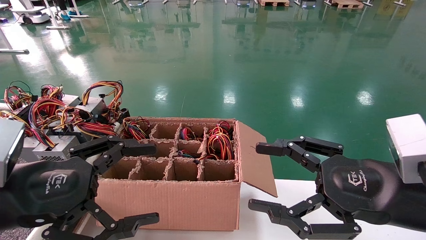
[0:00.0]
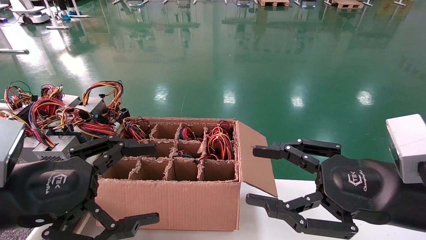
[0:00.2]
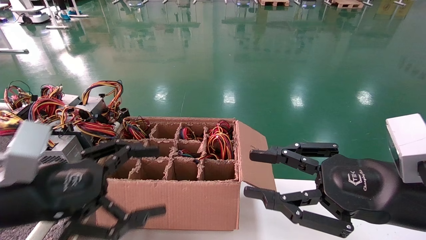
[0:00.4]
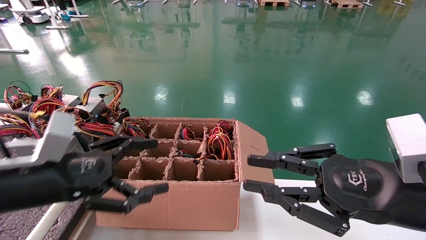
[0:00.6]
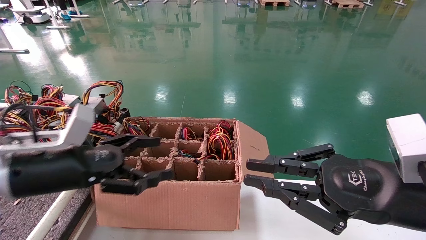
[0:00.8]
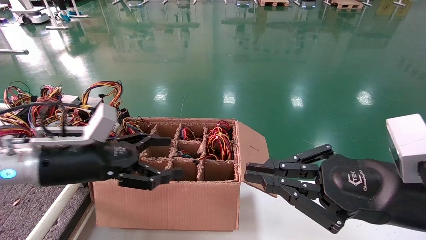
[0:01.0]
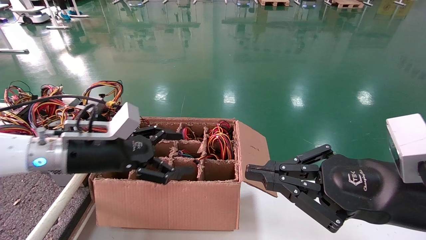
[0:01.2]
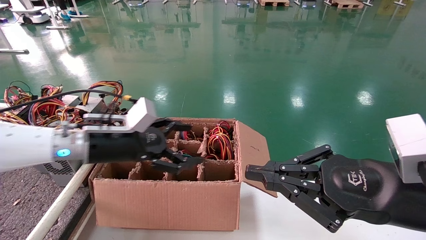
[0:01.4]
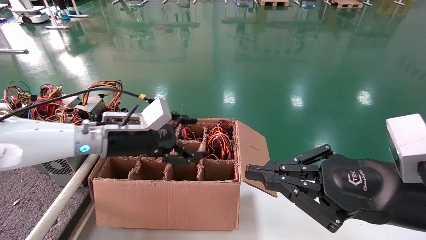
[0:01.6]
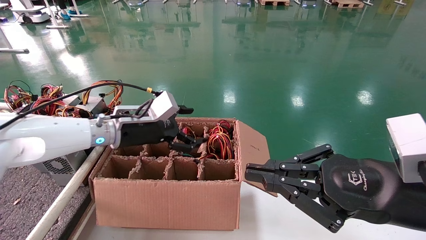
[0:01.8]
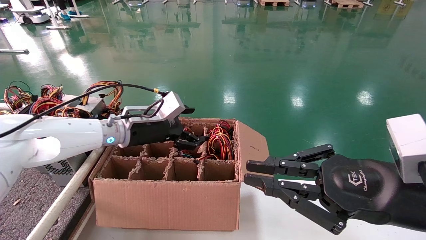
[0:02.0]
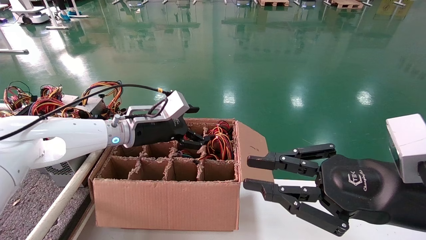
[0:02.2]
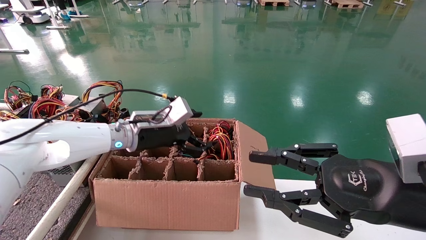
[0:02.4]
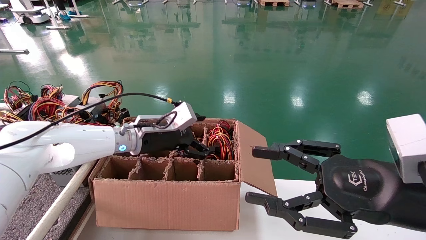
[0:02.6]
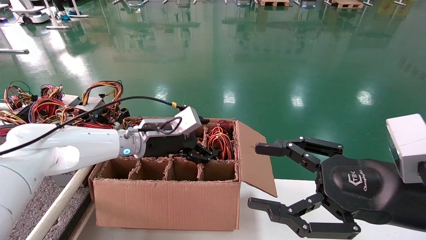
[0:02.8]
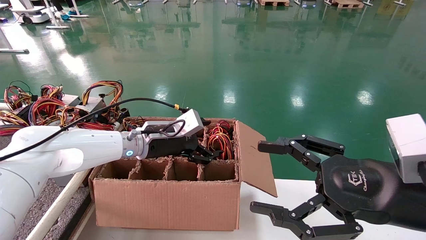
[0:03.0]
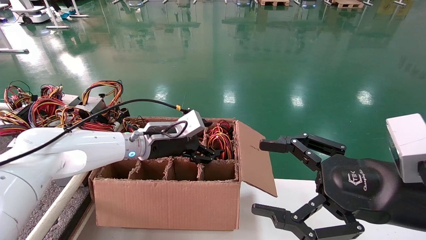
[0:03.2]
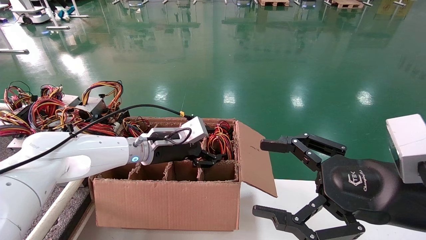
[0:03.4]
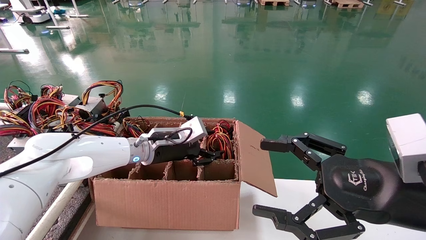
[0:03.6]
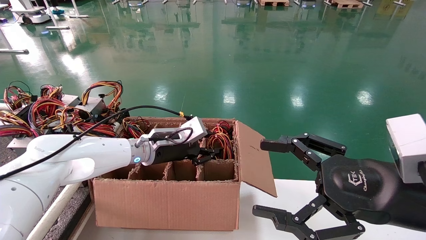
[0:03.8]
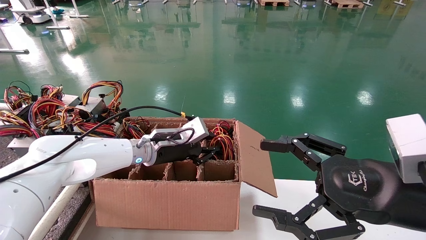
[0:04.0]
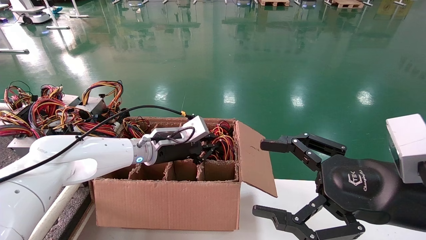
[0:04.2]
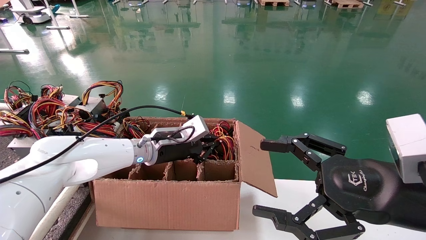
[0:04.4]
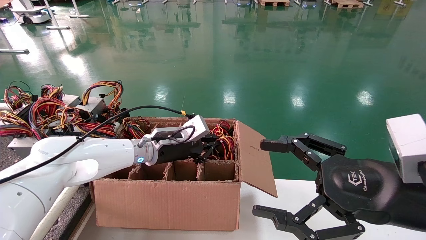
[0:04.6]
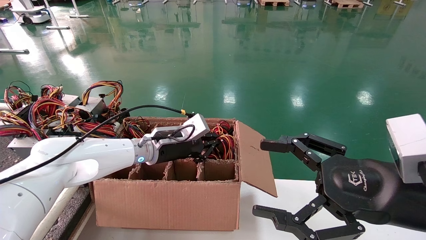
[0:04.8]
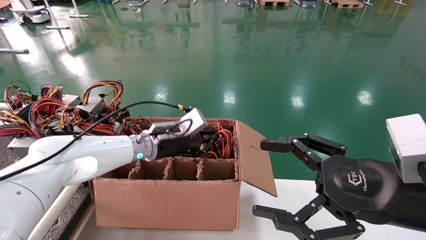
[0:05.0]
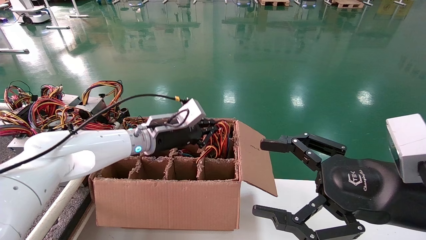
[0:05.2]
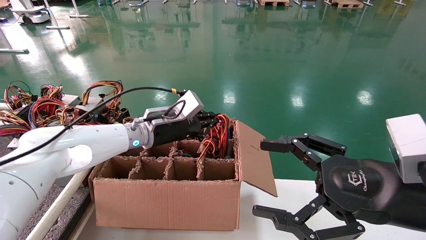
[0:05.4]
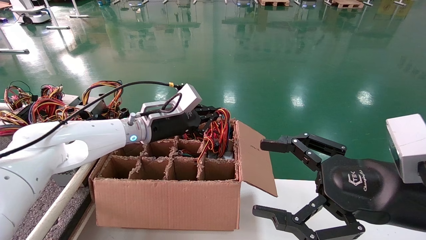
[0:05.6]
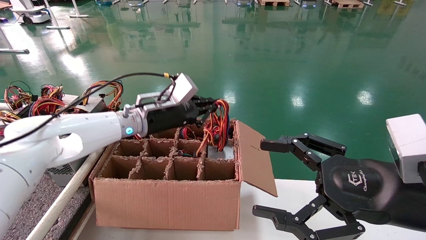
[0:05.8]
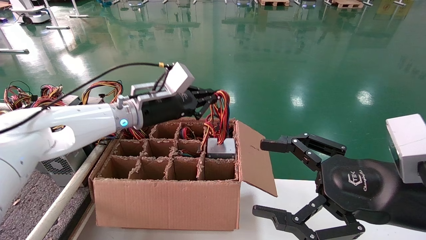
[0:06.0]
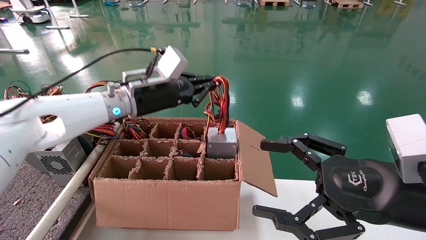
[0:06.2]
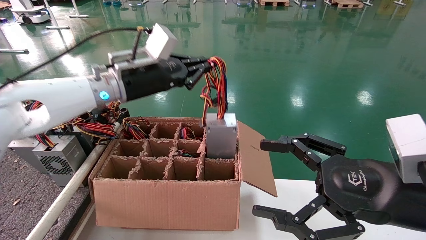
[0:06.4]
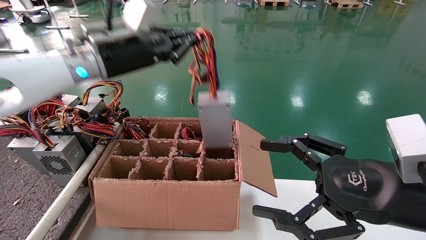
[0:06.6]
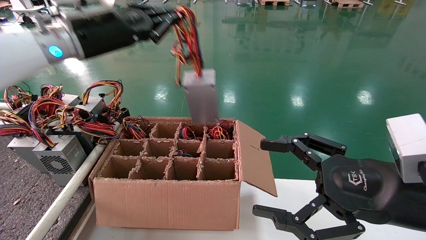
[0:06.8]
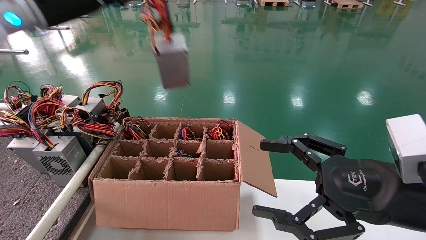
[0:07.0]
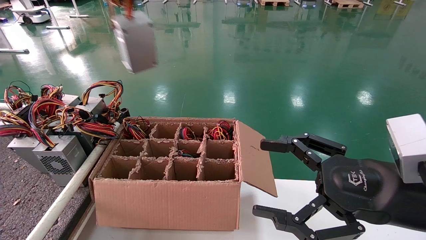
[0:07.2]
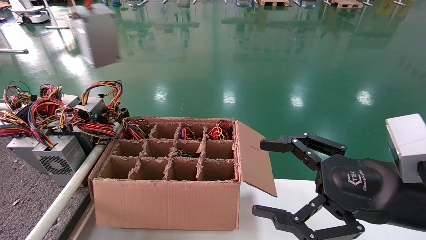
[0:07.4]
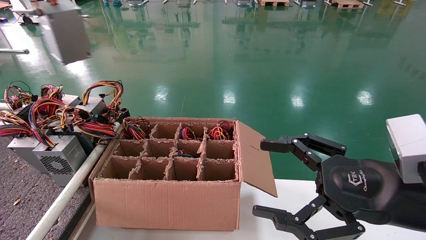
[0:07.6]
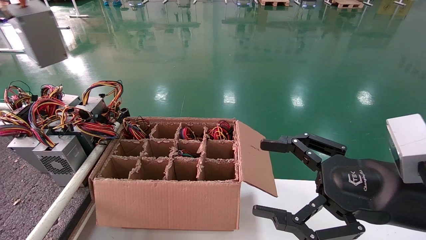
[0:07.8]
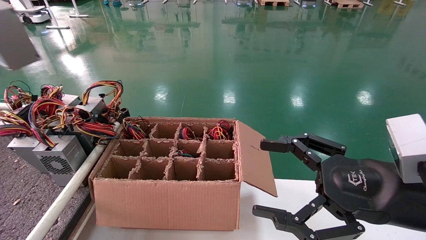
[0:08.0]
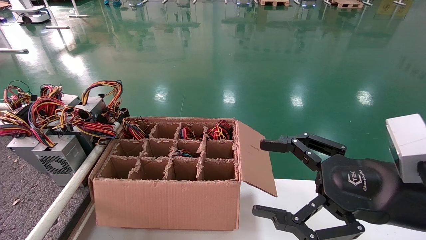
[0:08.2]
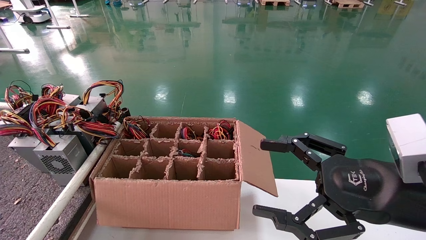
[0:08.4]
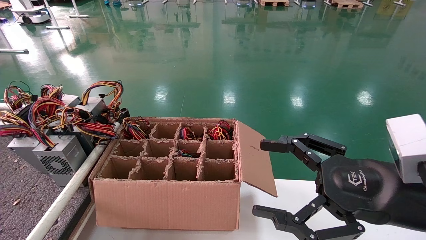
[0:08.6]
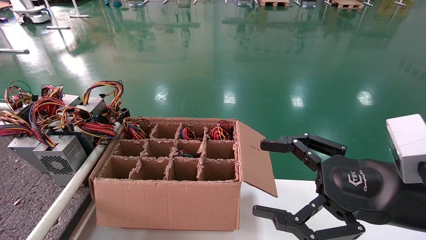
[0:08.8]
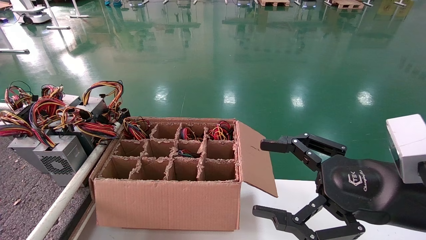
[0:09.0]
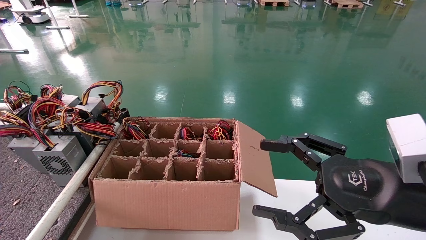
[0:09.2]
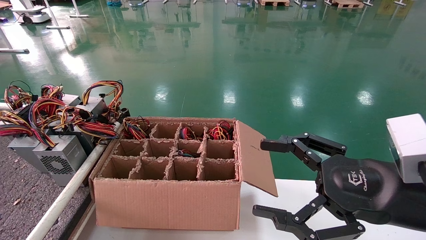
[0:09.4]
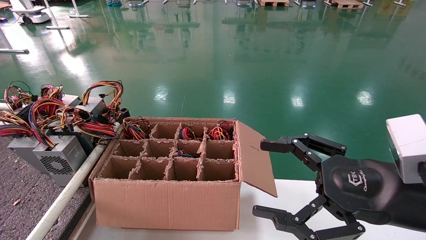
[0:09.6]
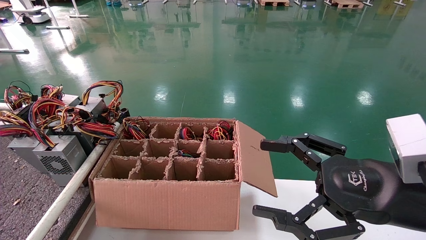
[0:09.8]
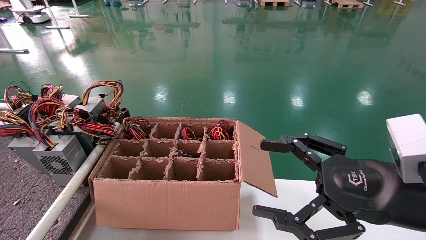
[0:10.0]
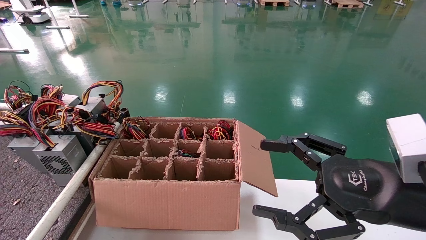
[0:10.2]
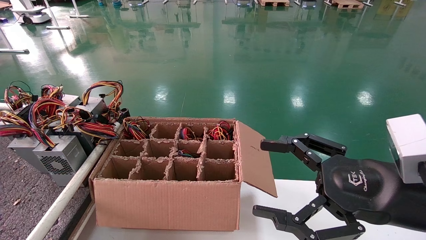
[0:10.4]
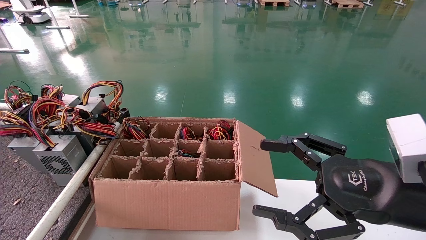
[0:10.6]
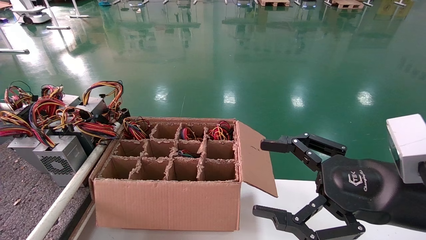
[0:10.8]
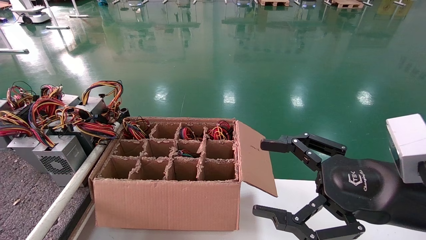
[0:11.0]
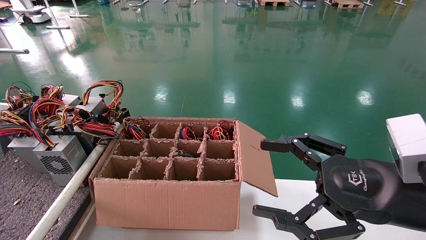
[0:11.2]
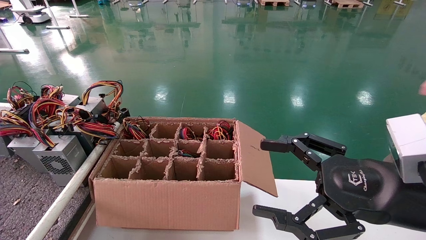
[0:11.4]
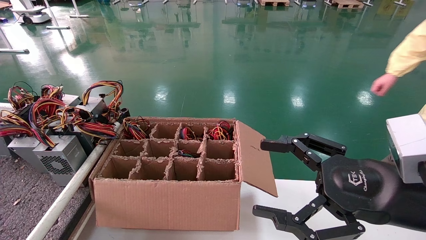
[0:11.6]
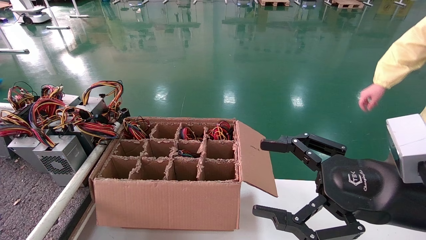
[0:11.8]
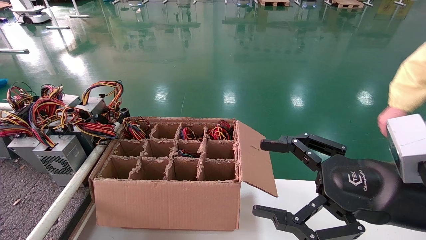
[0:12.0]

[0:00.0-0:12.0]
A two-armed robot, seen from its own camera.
Step, 0:00.6 to 0:05.0: Grab and lift the power supply from the large box.
0:00.0 to 0:01.6: The left gripper travels forward by about 20 cm; the right gripper closes.
0:01.6 to 0:03.0: The left gripper goes roughly 5 cm to the right. The right gripper opens its fingers.
0:03.0 to 0:04.4: The left gripper closes up.
0:04.4 to 0:06.0: The left gripper moves upward, some 10 cm.
0:06.0 to 0:07.6: The left gripper shifts some 35 cm to the left and upward.
0:07.6 to 0:09.0: The left gripper shifts some 25 cm to the left, backward and downward.
0:10.4 to 0:12.0: The left gripper shifts roughly 10 cm forward and downward.

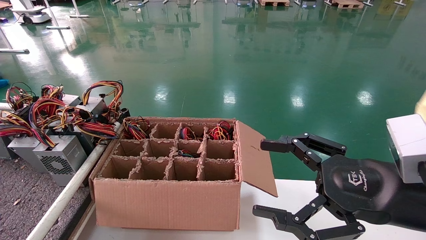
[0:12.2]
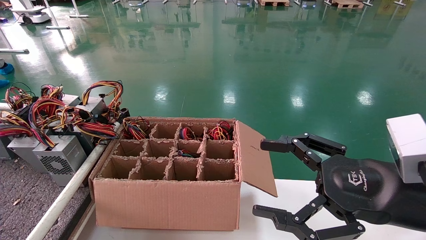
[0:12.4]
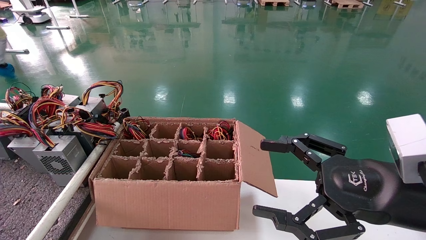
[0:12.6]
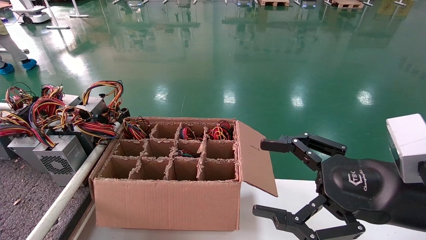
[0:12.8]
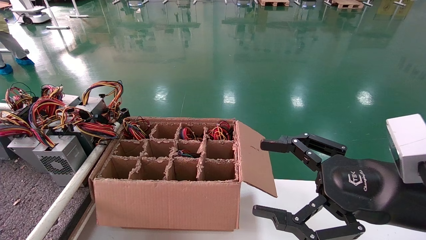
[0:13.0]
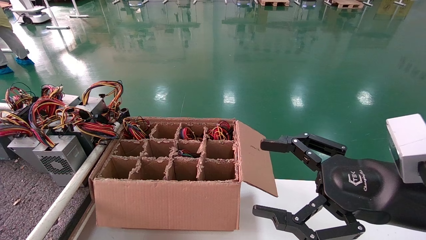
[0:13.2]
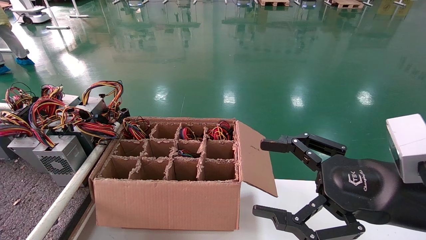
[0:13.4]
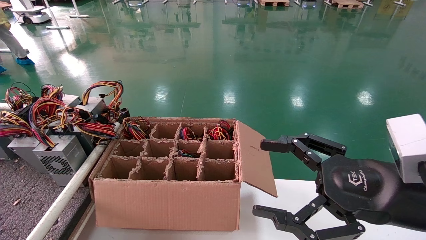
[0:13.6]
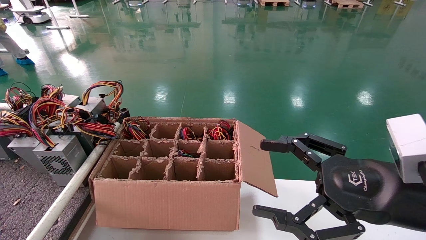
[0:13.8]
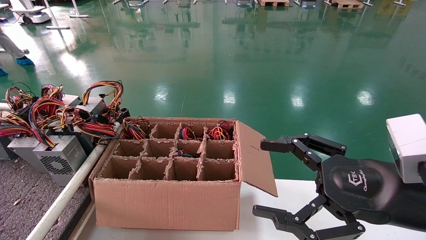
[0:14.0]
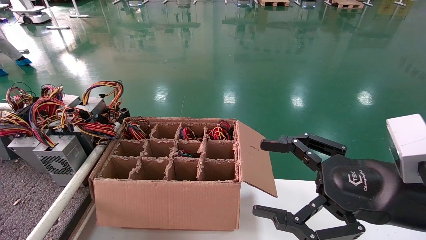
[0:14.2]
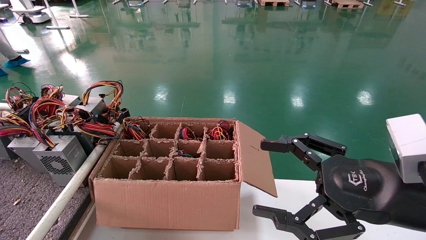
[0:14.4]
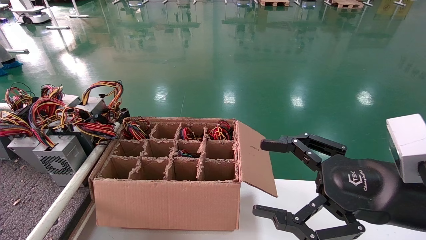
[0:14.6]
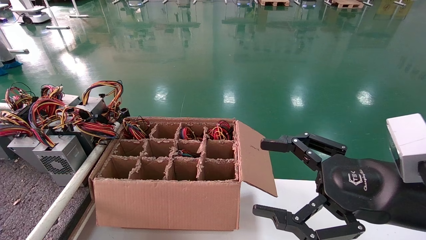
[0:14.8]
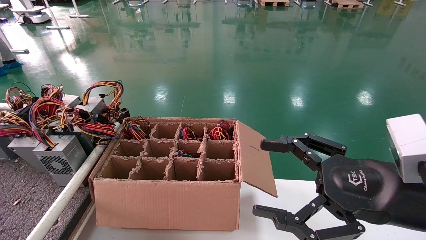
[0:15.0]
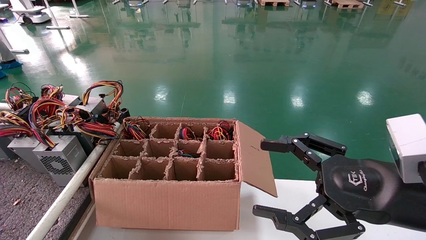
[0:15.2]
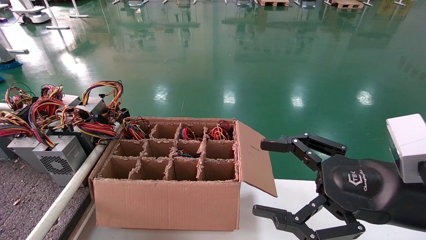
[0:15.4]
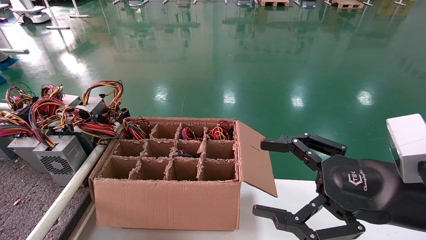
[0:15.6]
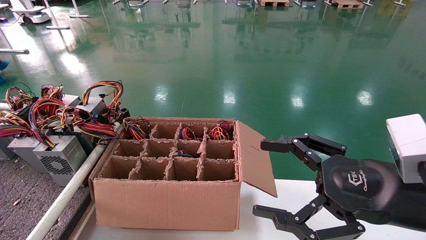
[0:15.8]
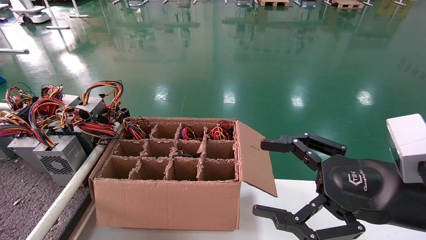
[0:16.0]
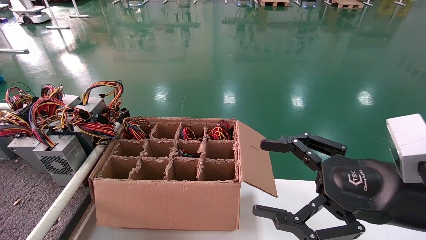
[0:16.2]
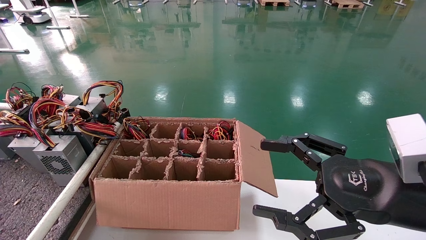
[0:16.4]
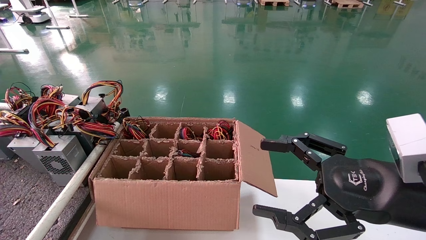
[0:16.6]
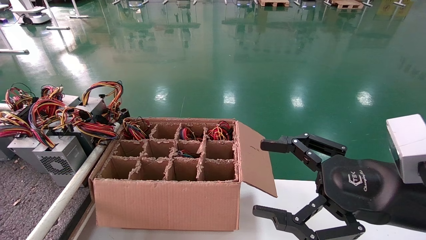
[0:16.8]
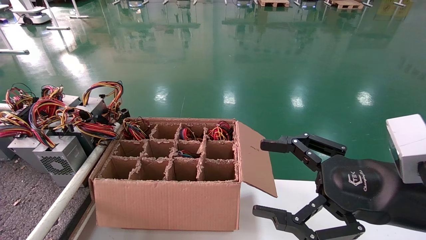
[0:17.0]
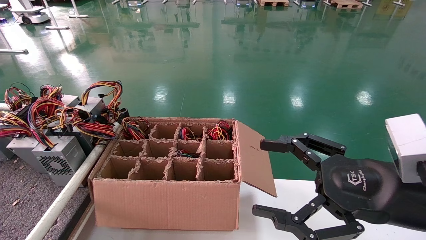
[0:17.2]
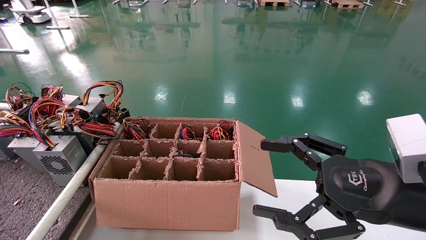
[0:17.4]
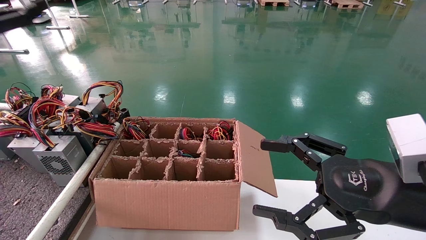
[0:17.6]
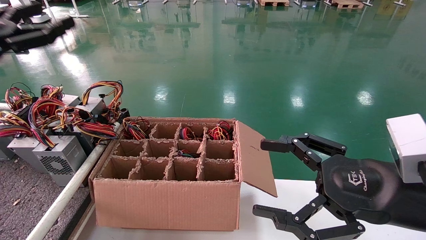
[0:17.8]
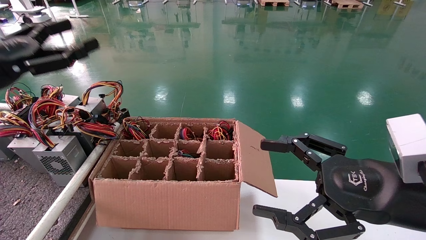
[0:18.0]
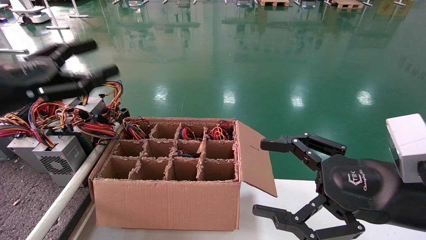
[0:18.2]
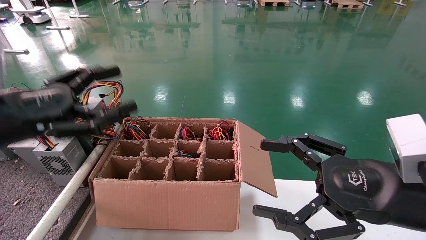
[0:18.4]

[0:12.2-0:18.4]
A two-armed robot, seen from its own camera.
0:12.2 to 0:13.8: The left gripper opens up.
0:13.8 to 0:15.4: The left gripper opens its fingers.
0:15.4 to 0:16.8: The left gripper shifts approximately 15 cm upward and to the right.
0:16.8 to 0:18.4: The left gripper goes roughly 25 cm to the right.
